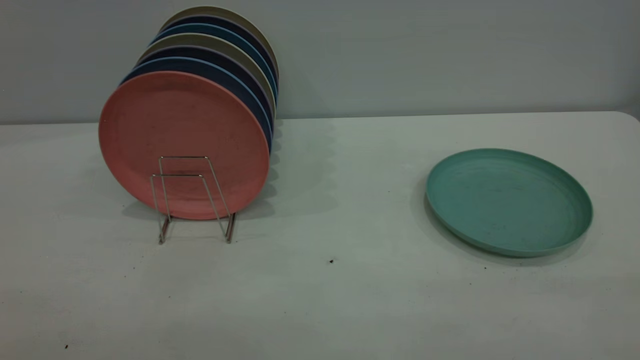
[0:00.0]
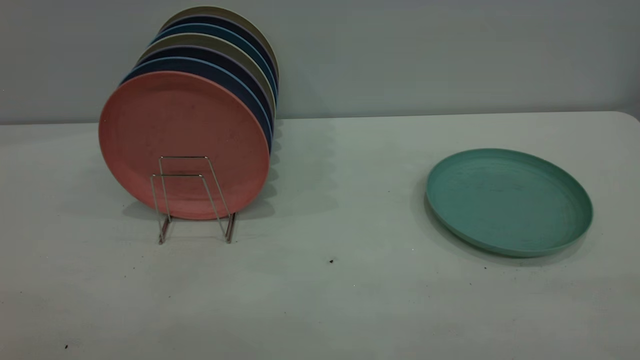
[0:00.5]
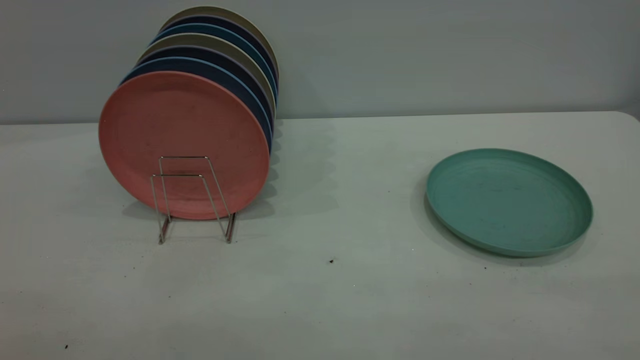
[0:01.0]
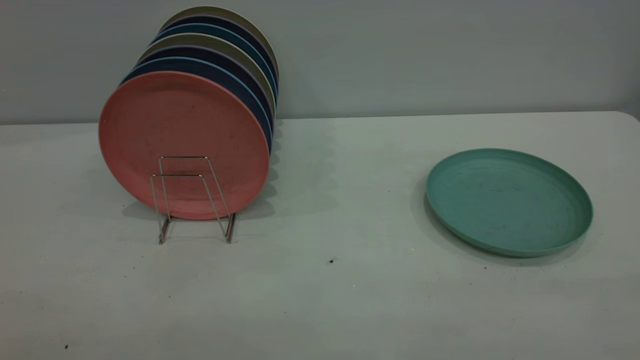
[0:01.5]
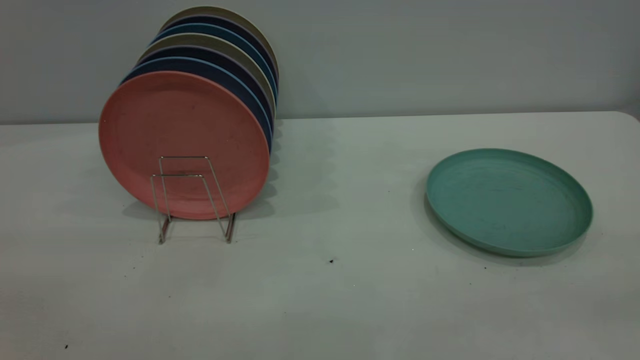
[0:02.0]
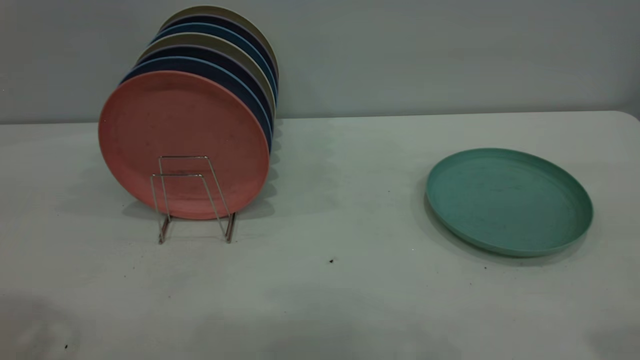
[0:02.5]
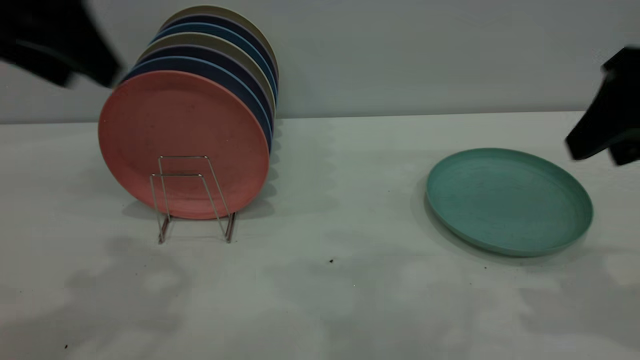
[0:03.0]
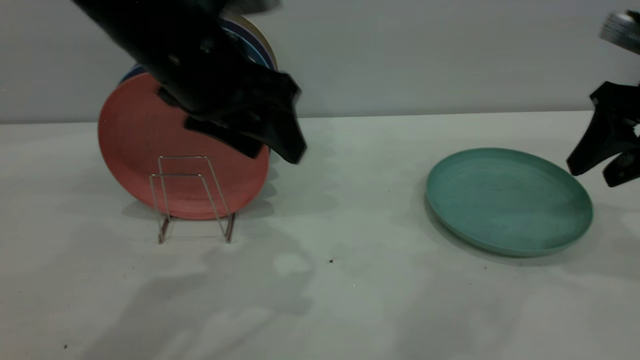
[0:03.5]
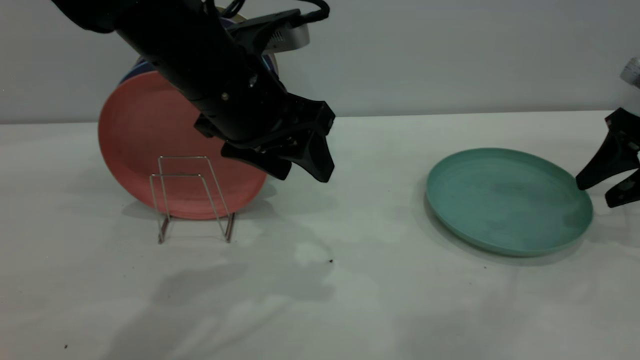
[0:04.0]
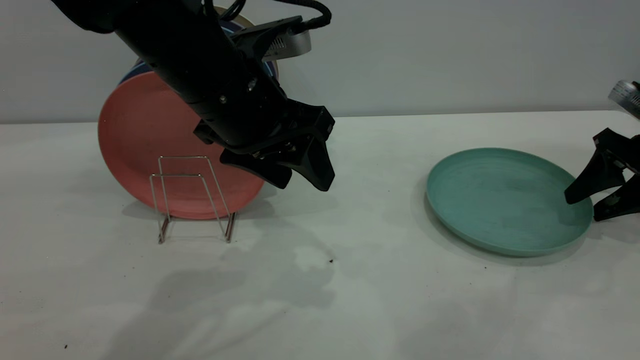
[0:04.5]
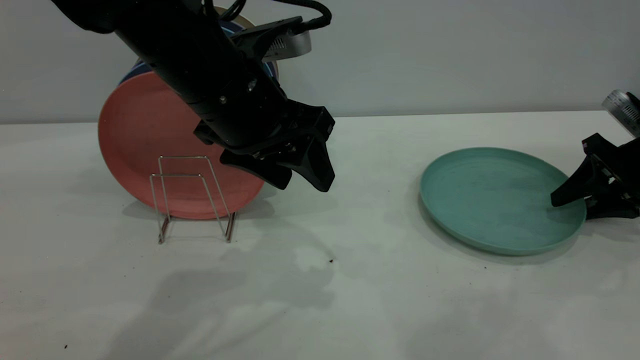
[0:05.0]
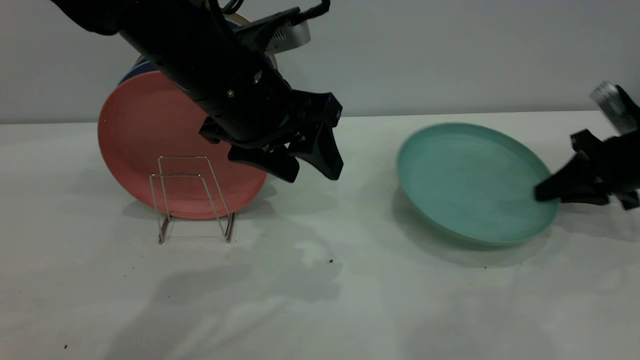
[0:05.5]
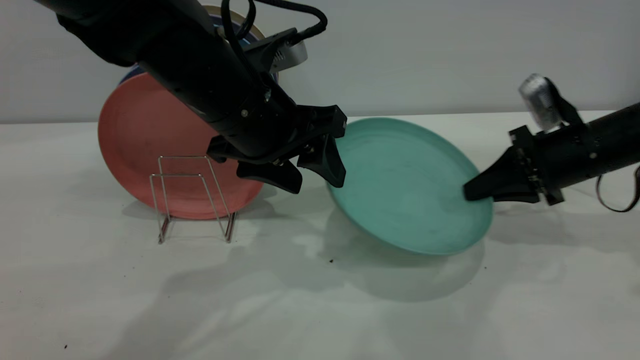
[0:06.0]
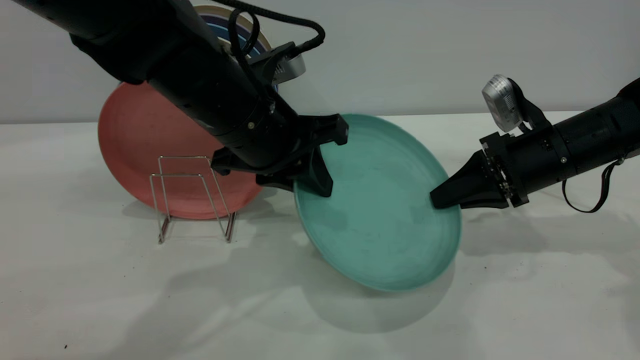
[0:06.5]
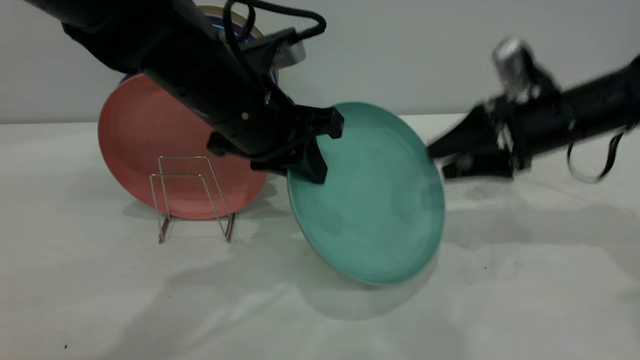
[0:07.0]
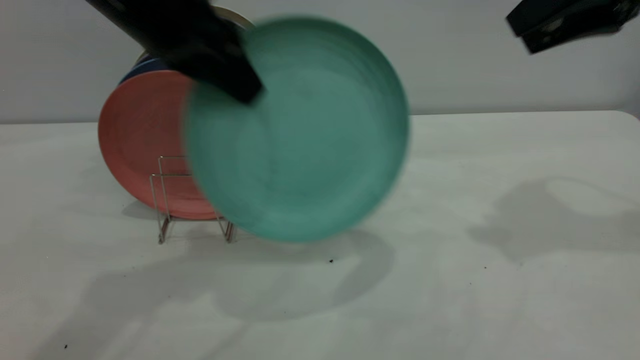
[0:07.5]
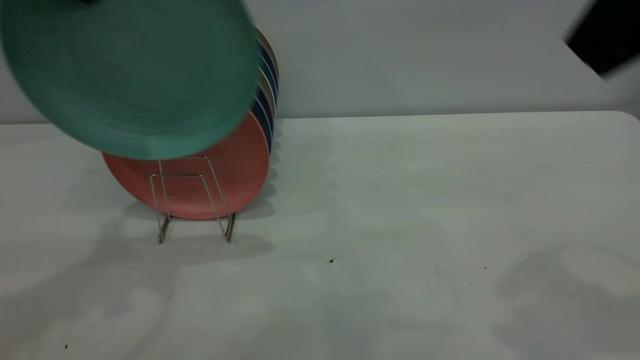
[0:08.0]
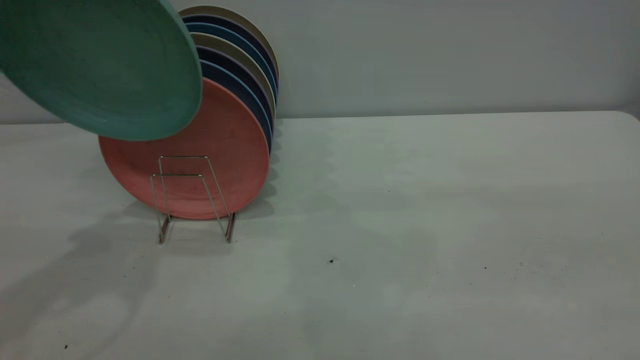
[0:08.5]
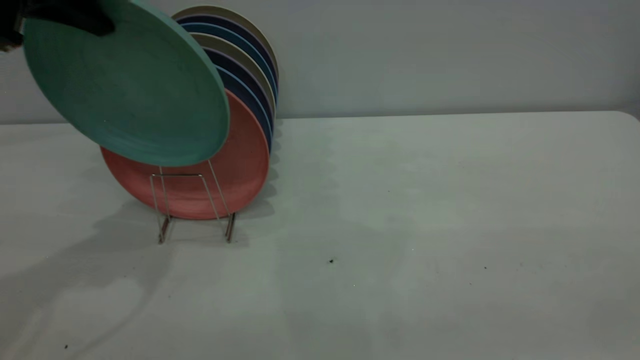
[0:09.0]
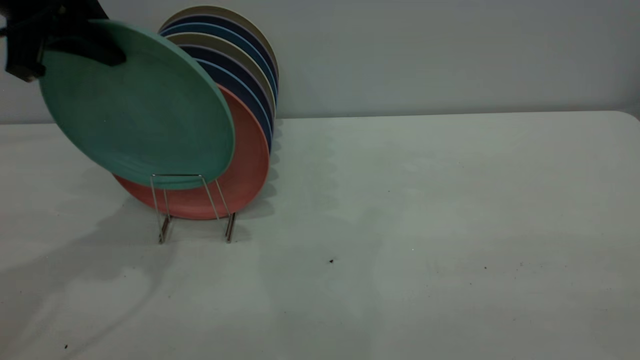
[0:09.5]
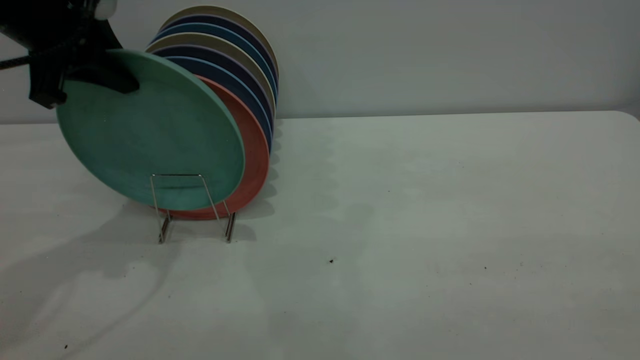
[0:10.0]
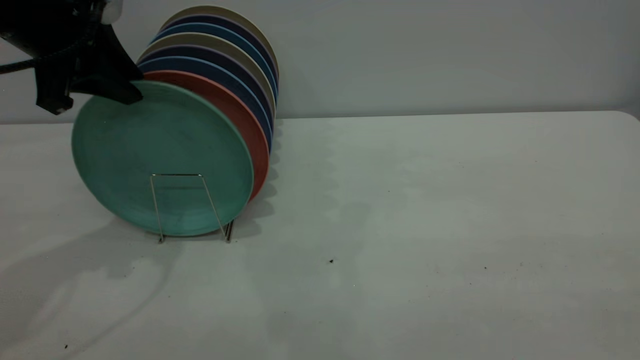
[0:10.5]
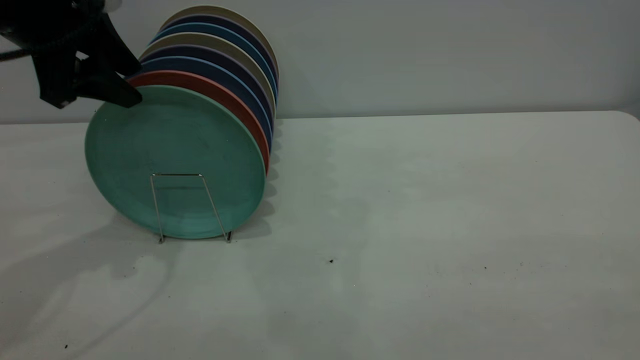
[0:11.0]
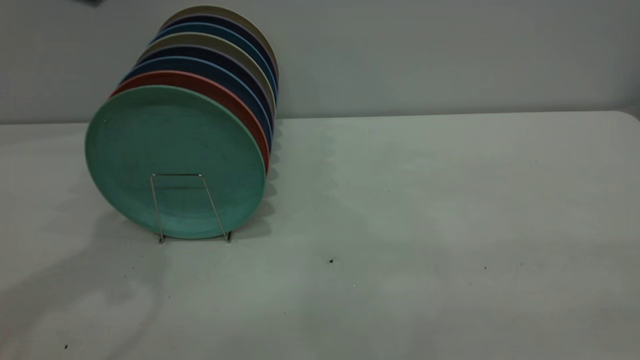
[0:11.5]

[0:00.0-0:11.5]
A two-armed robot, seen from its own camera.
Task of the whole recording: the right gripper grasp the green plate, the right gripper pass the green plate to the left gripper, and the left gripper place the green plate on the plate rack.
Step, 0:00.0 to 0:05.5: Pick up the plate with the right gripper.
Step, 0:06.0 to 0:07.0: Pass the plate from the right gripper to the left gripper.
Step, 0:08.0 to 0:11.0: Place the plate on the shelf.
0:02.0 to 0:04.0: The right gripper moves forward and downward, about 40 cm; the left gripper moves forward, to the right and downward, roughly 40 cm.
0:04.0 to 0:06.0: The right gripper heads to the left, covering approximately 10 cm, and closes up.
0:06.0 to 0:07.5: The right gripper shifts about 25 cm upward, and opens up; the left gripper moves upward and to the left, approximately 15 cm, and closes up.
0:07.5 to 0:09.5: The left gripper moves to the left, about 10 cm; the right gripper shifts roughly 35 cm backward.
0:09.5 to 0:11.5: The left gripper shifts approximately 10 cm upward and backward, and opens up.

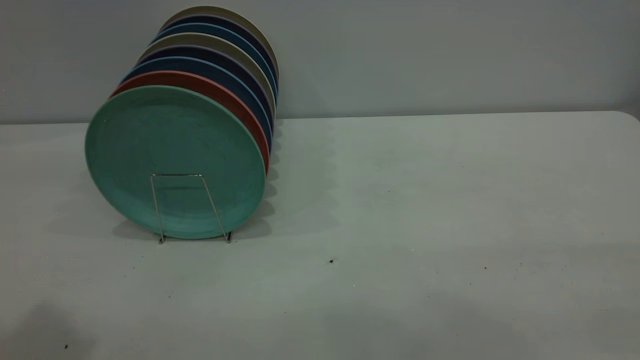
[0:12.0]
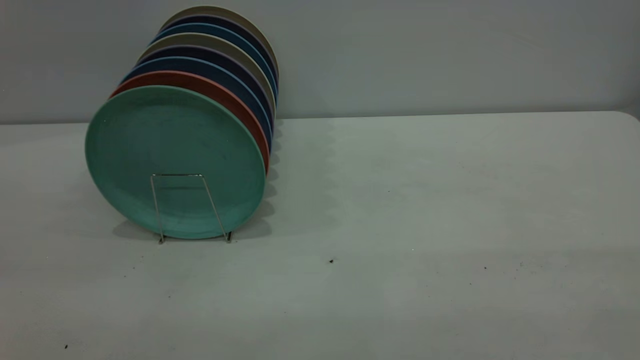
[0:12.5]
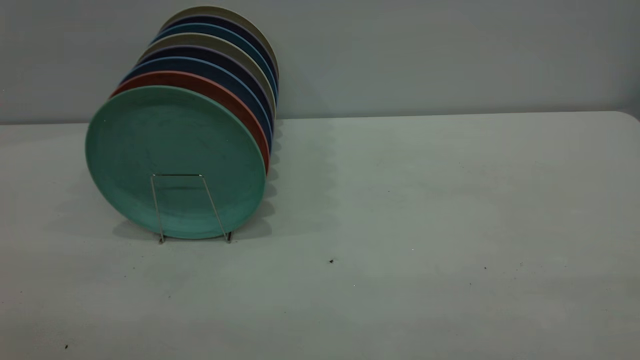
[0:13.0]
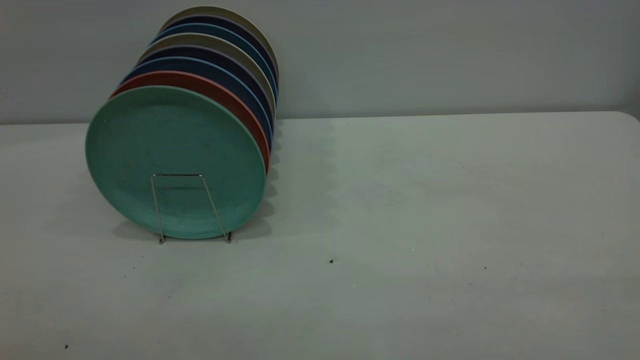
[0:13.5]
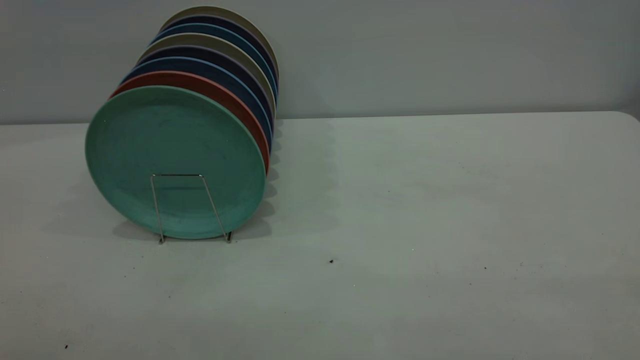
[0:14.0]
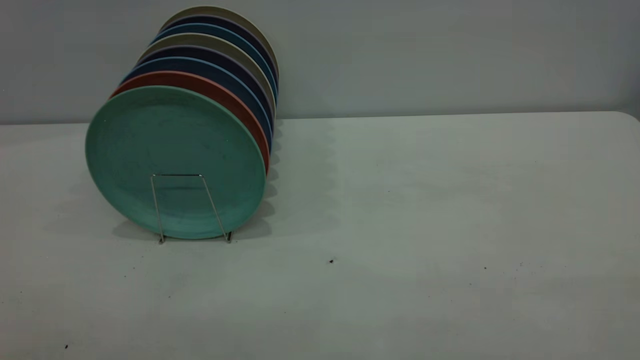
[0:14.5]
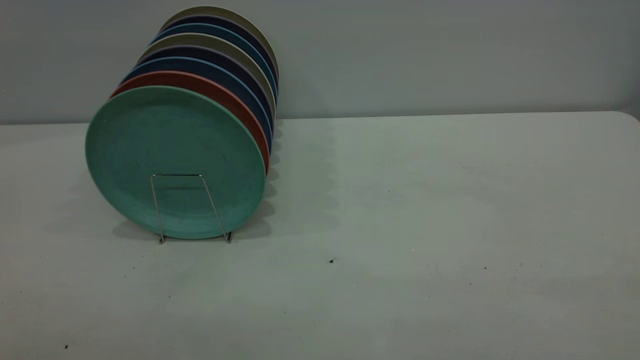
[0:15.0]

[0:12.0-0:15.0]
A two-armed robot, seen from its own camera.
Task of the whole recording: the right gripper grasp the green plate, the right gripper pass the green plate to the left gripper, and the left gripper place the green plate on the plate rack.
0:13.5 to 0:15.0: Both grippers stay about where they are.
